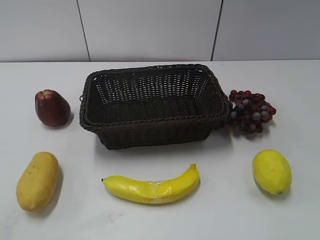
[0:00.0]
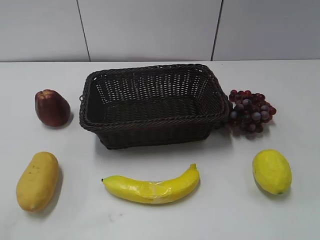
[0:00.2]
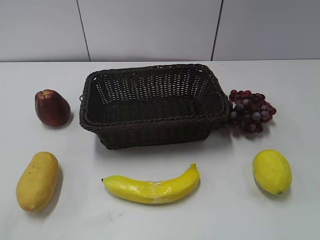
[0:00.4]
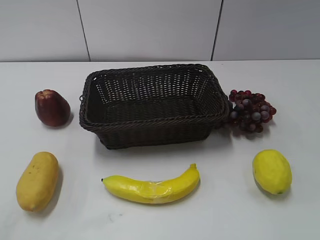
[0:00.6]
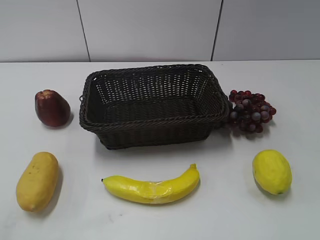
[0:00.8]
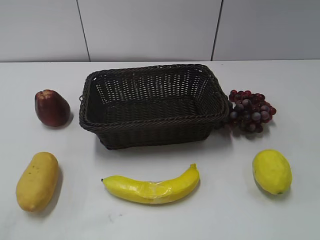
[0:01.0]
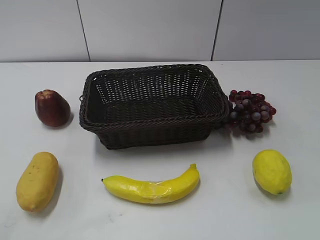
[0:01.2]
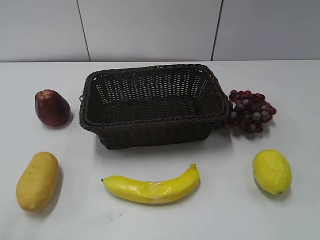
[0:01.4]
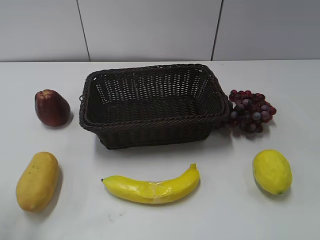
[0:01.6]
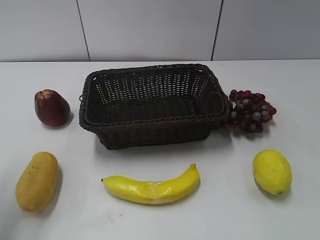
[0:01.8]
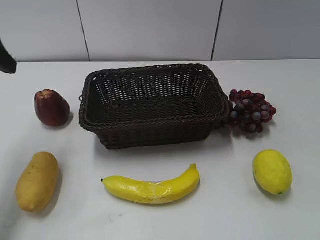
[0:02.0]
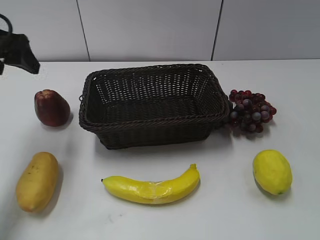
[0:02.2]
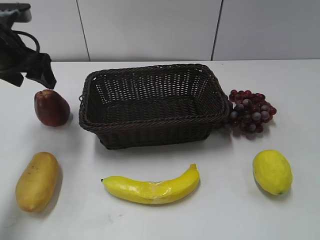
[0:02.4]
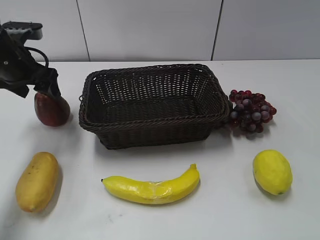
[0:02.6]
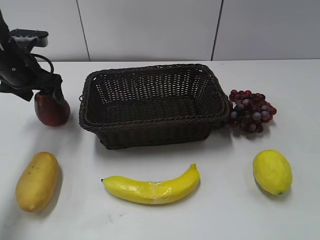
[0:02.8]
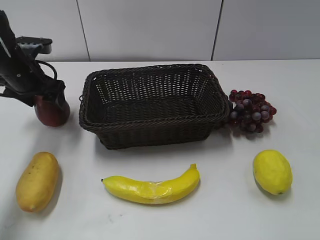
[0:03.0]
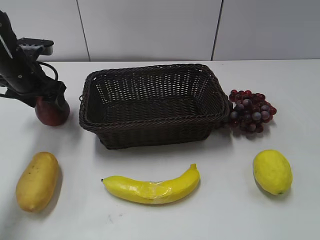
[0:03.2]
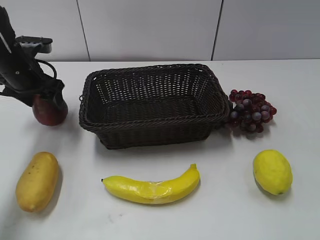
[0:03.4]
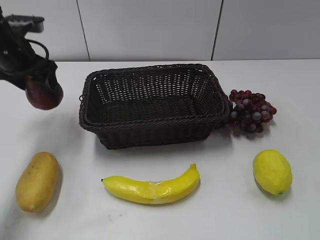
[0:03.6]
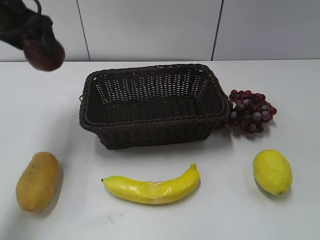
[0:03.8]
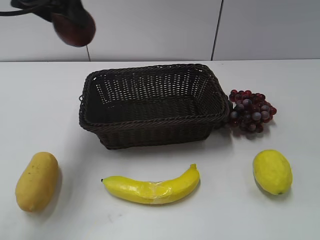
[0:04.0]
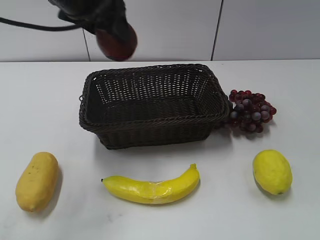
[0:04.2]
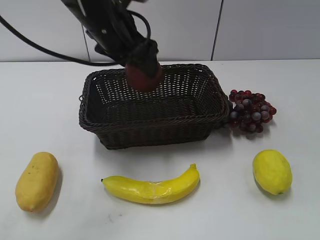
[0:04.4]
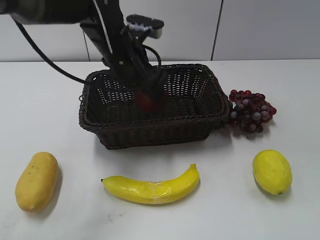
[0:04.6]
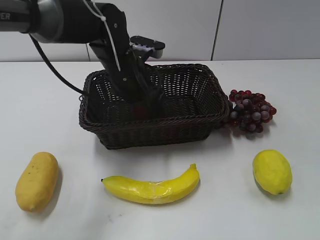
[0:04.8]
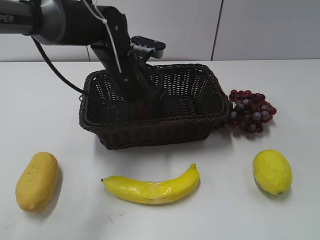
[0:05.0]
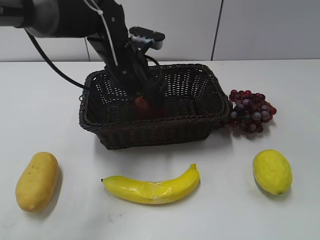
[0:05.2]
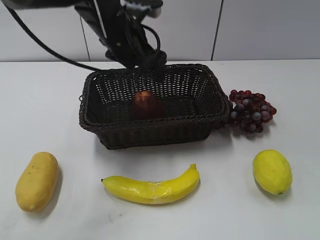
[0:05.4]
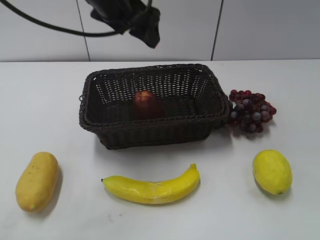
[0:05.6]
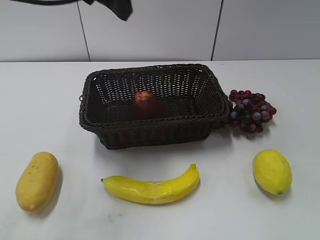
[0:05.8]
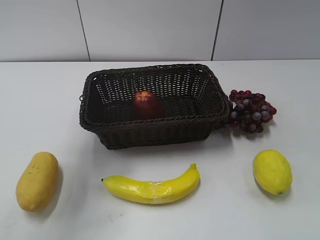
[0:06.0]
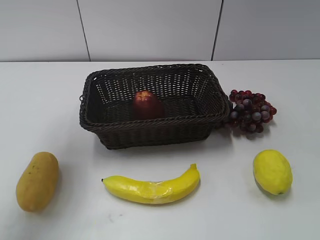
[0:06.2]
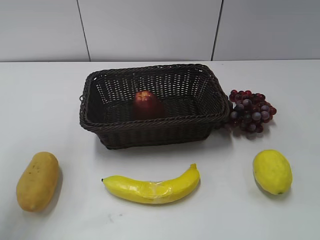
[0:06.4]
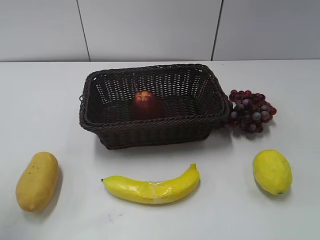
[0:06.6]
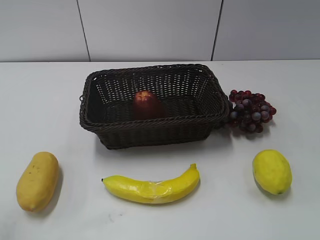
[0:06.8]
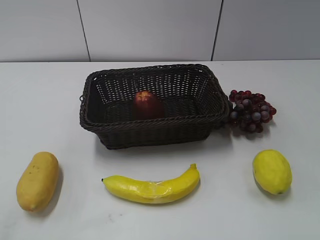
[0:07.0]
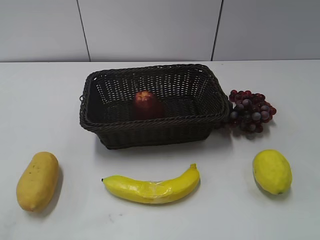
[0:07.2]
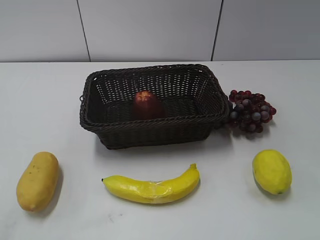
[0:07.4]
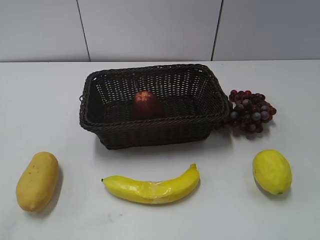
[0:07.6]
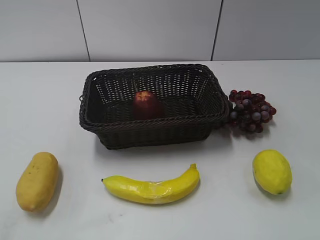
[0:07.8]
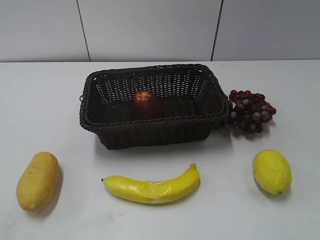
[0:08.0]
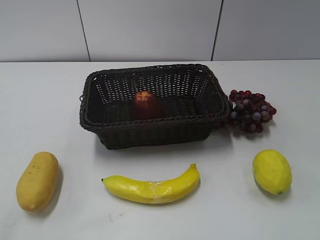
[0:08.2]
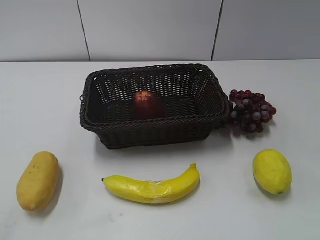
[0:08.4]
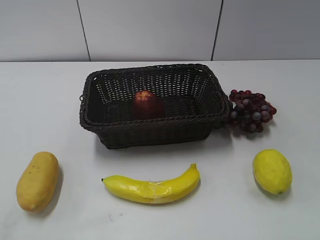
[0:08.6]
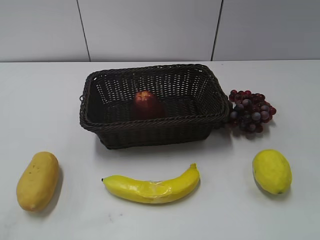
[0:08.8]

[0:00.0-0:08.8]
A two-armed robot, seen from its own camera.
Step, 0:02.0 to 0:03.0: Grasp the apple with left gripper.
Step, 0:03.2 to 0:05.0: Place the apple in the basket with left gripper.
0:01.4 to 0:03.0: The left gripper goes some 35 cm forward and downward.
0:03.0 to 0:04.4: The left gripper shifts approximately 20 cm to the right and upward, and closes its fingers.
0:04.4 to 0:05.8: The left gripper heads upward, covering some 10 cm, and opens up.
0:05.8 to 0:07.4: The left gripper moves backward and to the left, about 40 cm, and closes its fingers.
